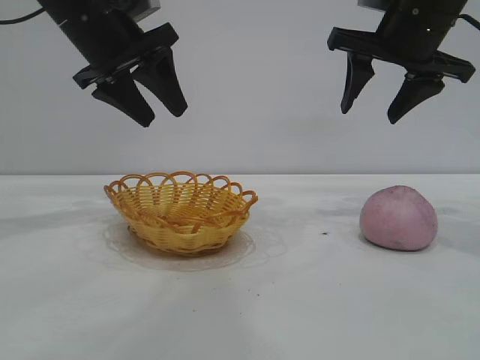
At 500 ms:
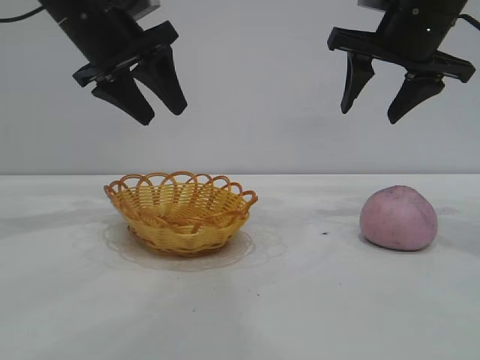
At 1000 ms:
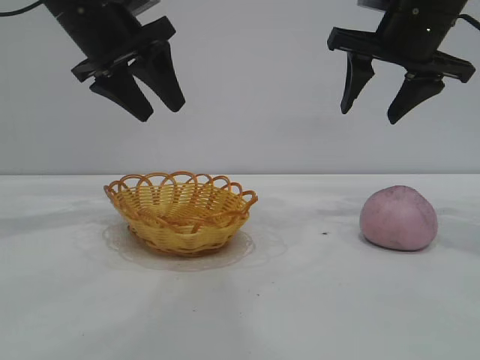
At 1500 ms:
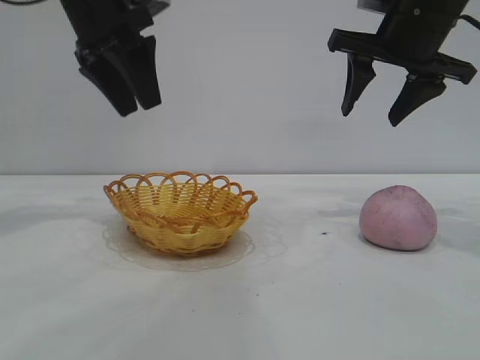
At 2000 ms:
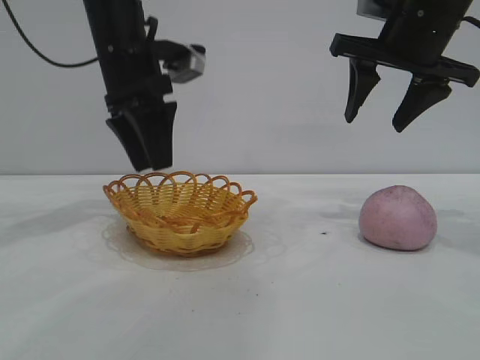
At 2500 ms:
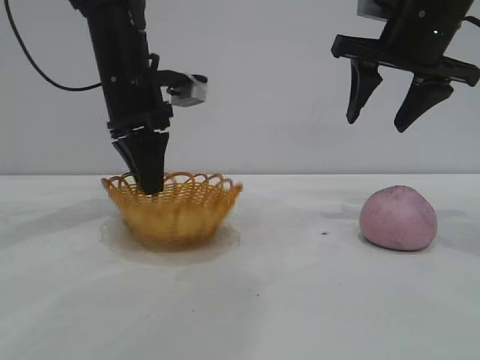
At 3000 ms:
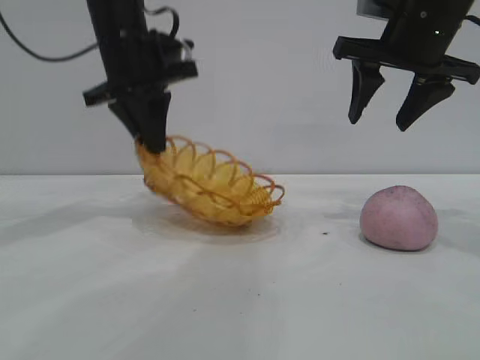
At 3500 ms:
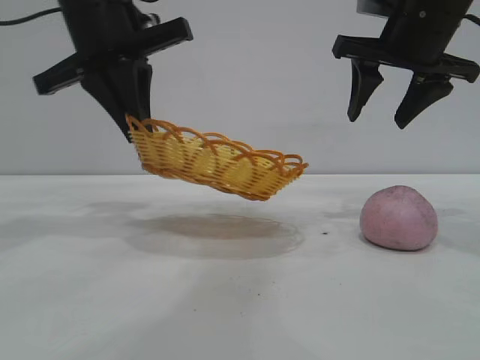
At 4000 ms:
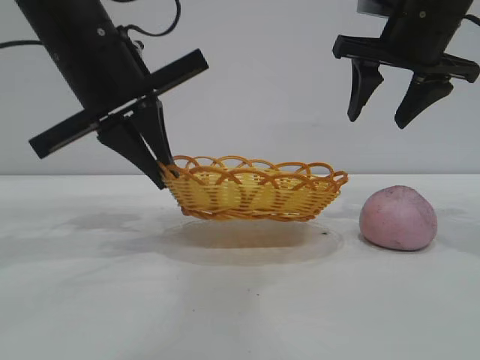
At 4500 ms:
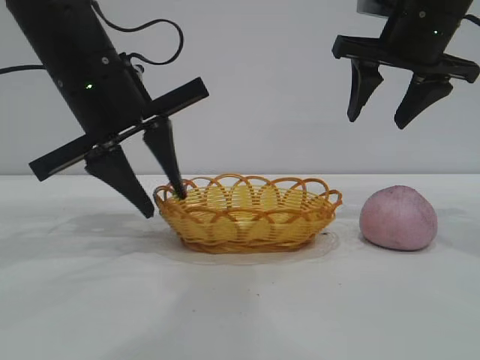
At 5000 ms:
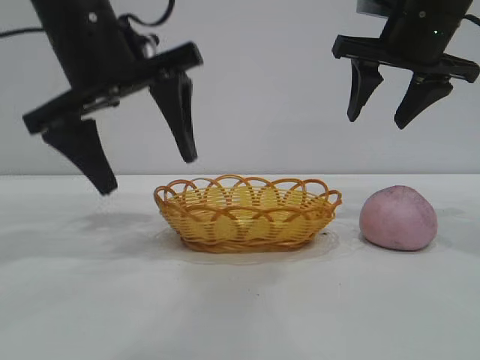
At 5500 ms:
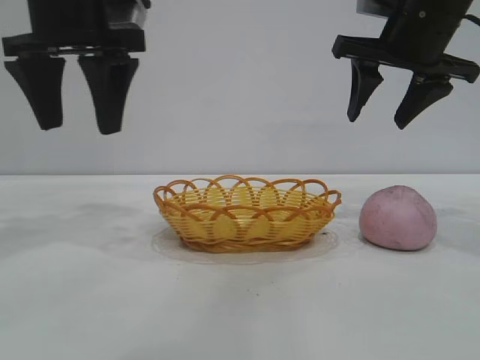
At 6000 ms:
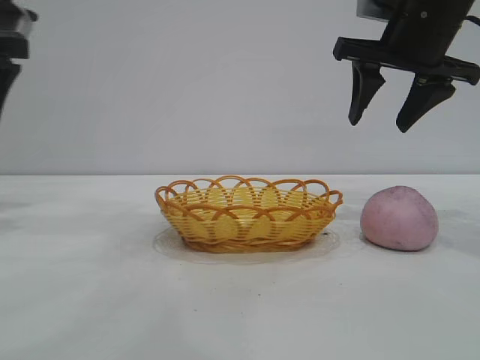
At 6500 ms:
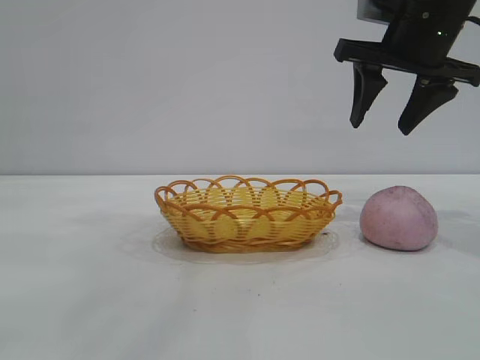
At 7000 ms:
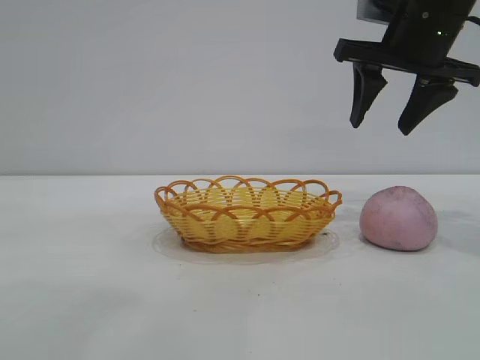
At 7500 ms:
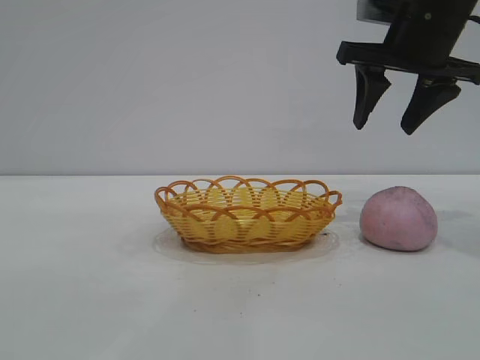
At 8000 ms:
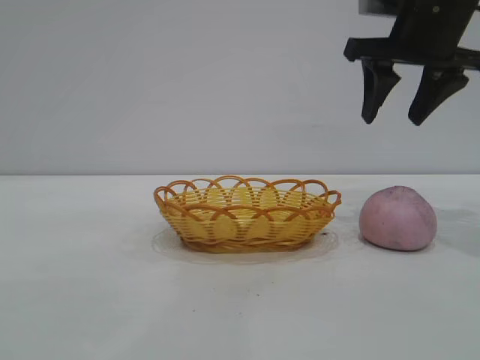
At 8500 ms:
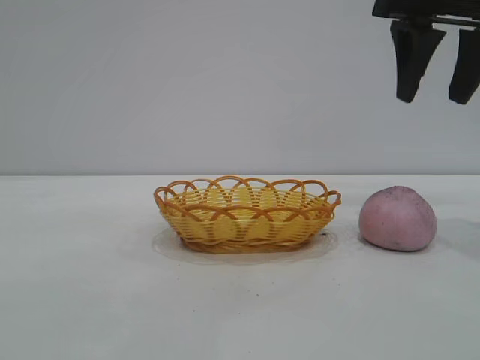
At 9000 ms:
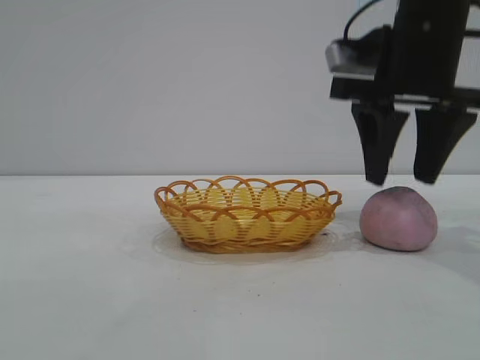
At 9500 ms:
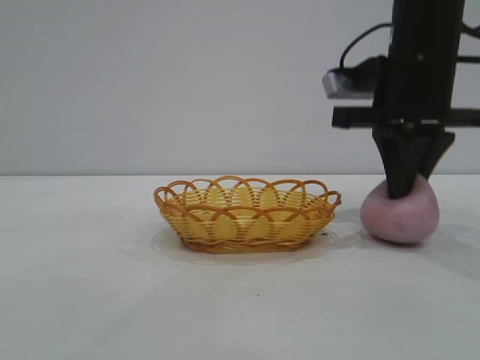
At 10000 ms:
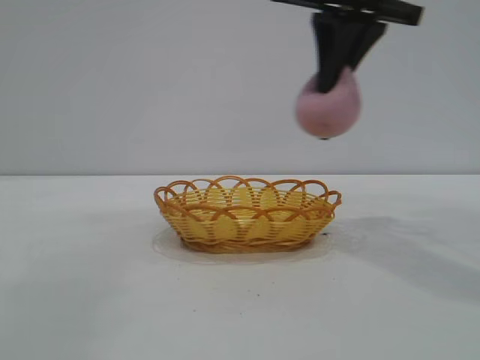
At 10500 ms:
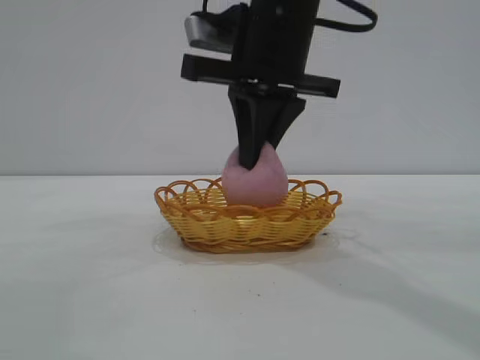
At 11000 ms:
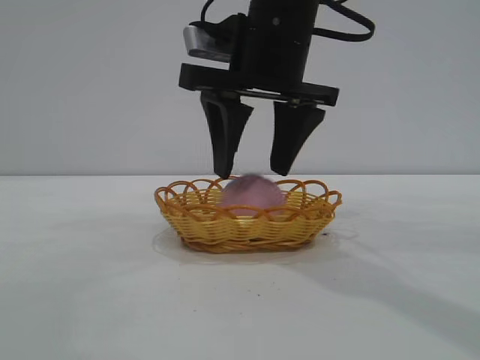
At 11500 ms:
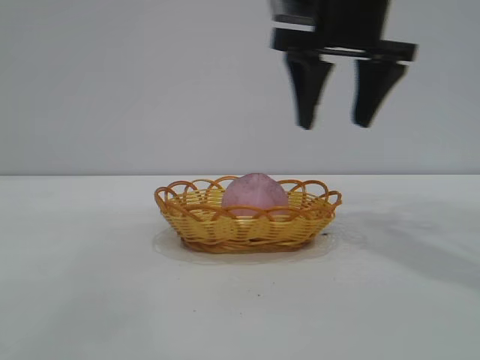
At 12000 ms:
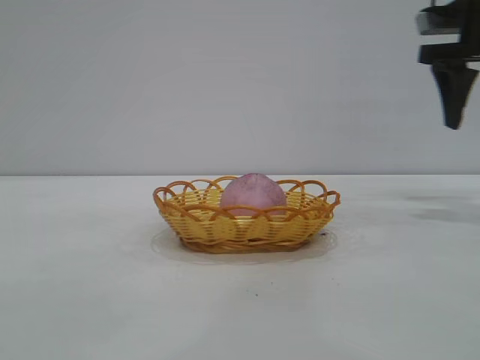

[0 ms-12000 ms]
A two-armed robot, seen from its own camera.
Task of the whole recording: pick up the peach and put it into the basket.
Step, 0 ms to 5000 ms: Move the basket to the center of view.
Step, 5500 ms to 9500 ms: Pick up the peach.
Step, 10000 ms to 11000 ms: place the peach into the basket.
